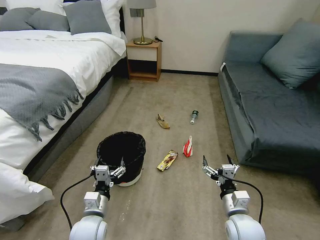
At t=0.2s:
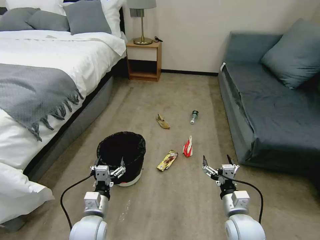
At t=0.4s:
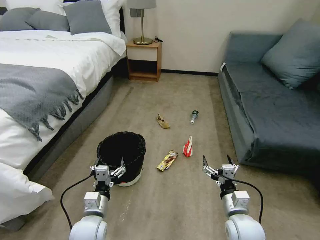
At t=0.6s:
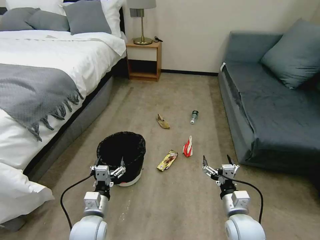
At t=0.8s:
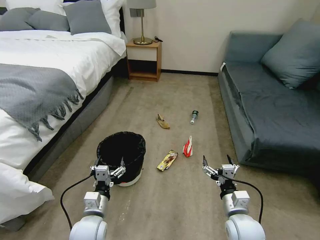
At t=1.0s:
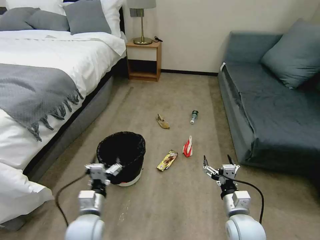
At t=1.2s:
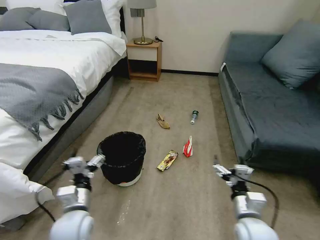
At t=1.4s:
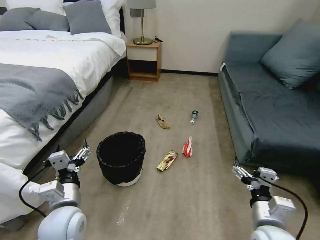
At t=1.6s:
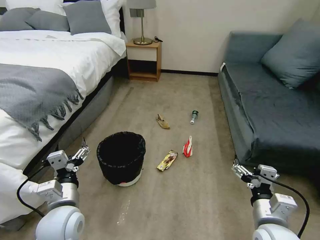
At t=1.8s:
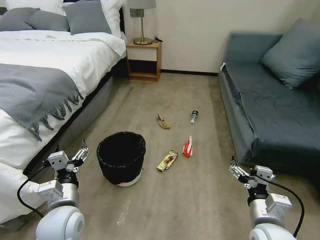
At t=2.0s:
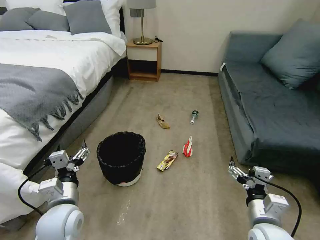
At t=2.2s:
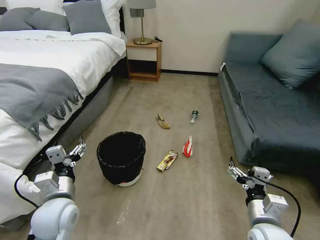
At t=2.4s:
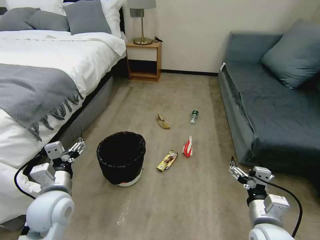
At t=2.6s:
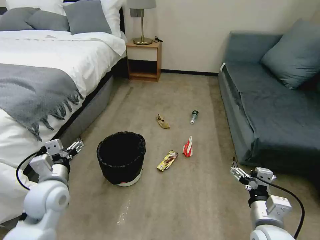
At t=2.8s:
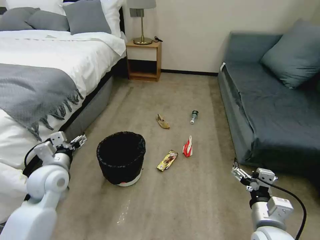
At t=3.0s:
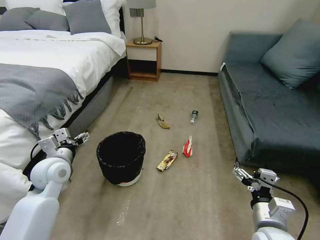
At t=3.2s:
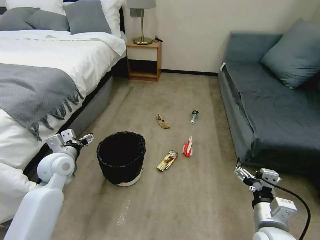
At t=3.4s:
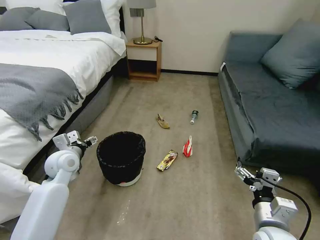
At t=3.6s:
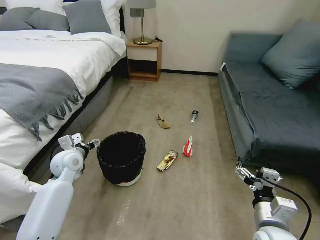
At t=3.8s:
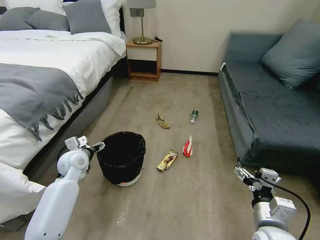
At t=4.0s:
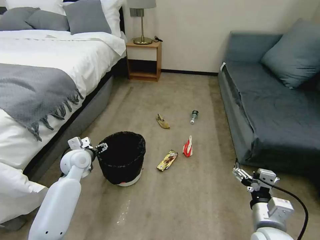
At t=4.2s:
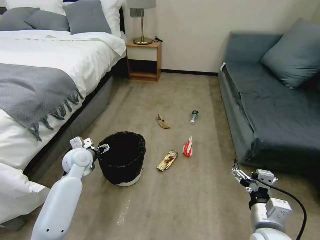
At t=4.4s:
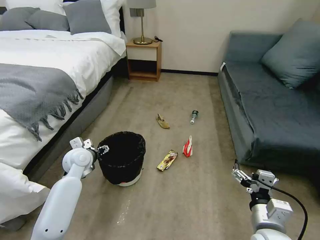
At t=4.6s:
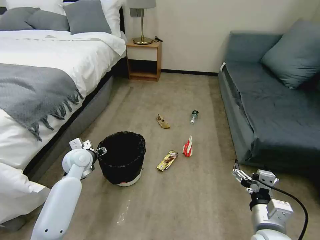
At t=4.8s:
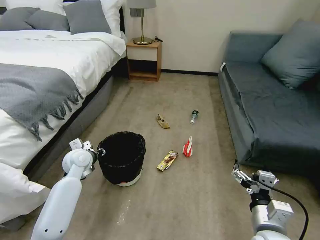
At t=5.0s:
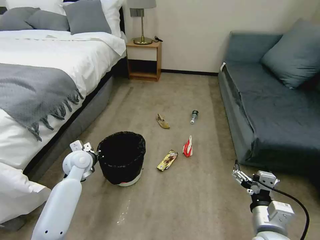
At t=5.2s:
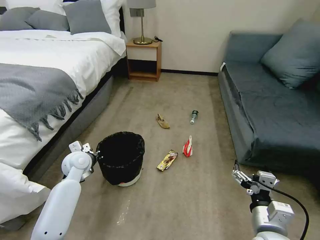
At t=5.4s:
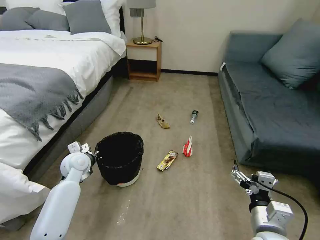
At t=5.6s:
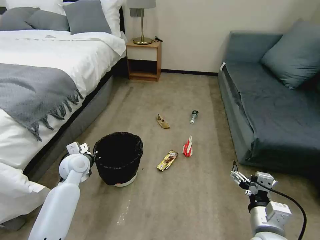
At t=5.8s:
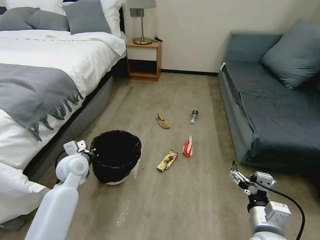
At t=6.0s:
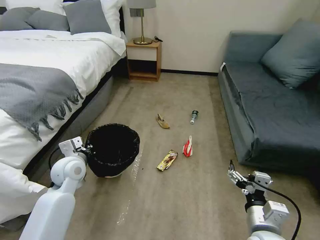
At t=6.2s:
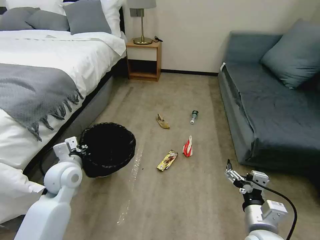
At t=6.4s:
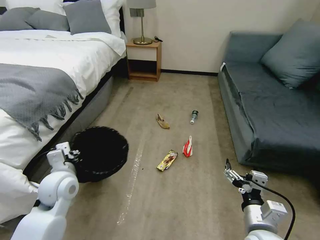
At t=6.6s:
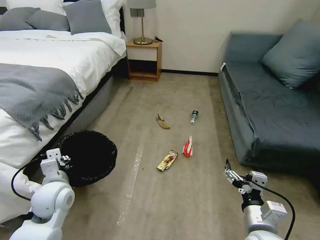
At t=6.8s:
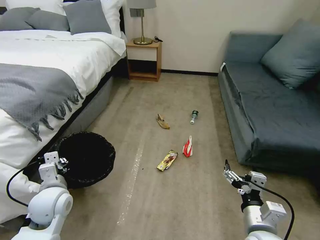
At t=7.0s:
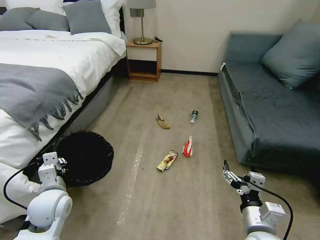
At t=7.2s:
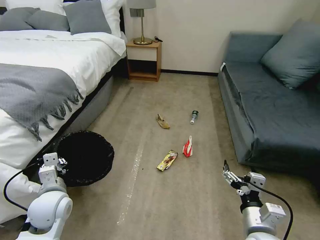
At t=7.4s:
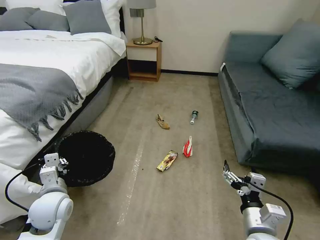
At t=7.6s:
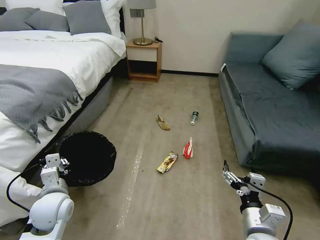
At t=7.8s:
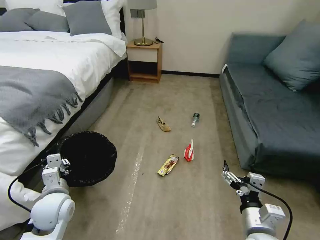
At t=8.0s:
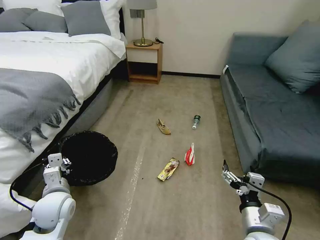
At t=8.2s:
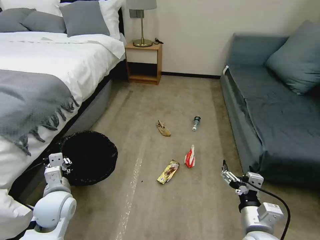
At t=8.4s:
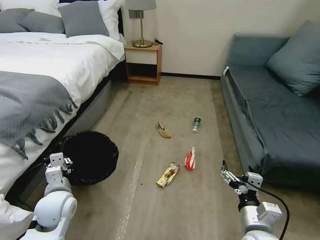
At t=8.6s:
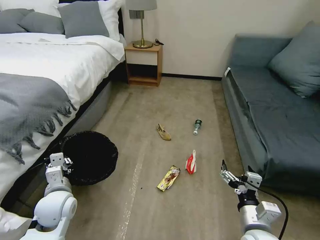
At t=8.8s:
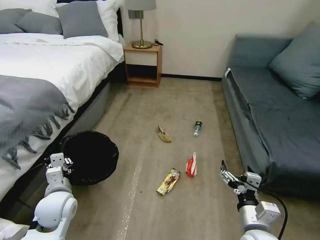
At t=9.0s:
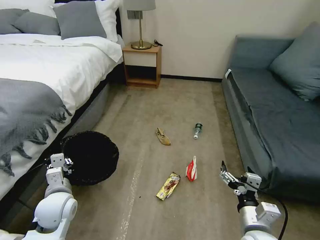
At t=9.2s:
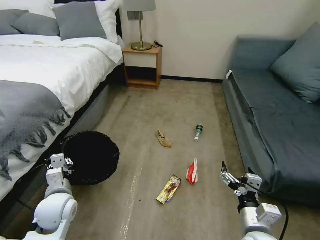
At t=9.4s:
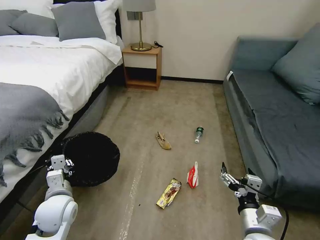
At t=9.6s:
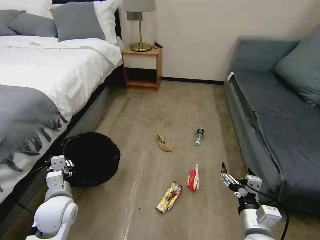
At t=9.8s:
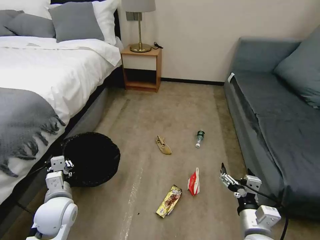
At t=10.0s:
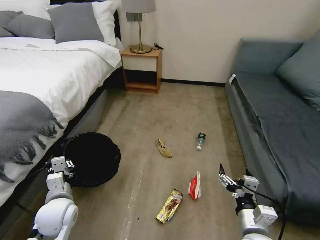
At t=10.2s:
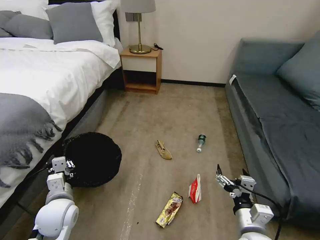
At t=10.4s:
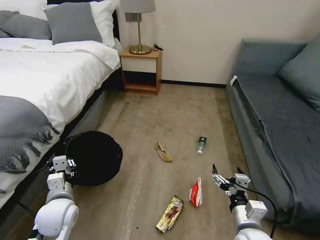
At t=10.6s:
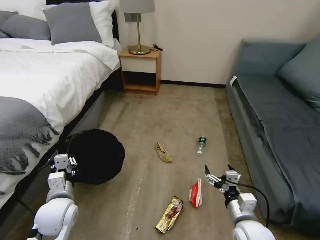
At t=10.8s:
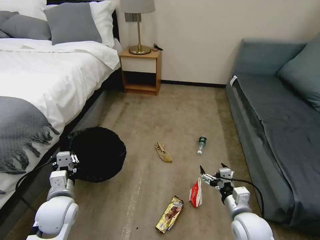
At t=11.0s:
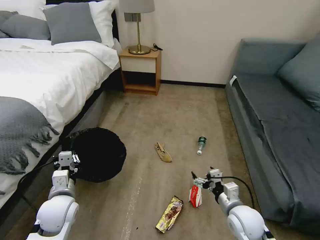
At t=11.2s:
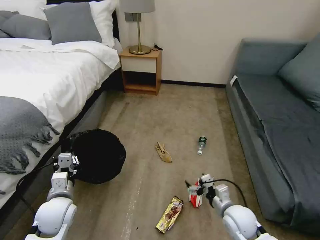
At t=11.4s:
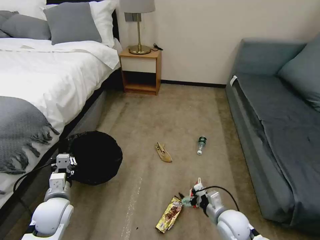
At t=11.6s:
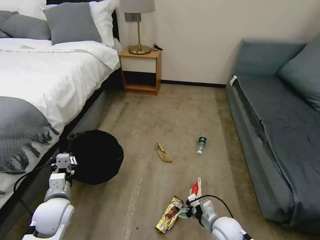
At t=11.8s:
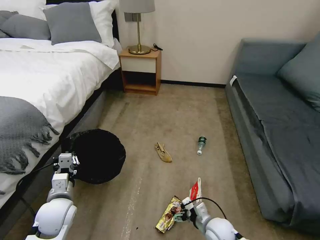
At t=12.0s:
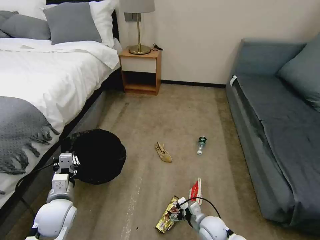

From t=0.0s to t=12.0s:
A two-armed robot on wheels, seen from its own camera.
Task of the whole recording: Pick up the trash bin, then pick up the garbage on the floor and place it into the trash bin.
From t=1.6s to t=3.0s: The left gripper shifts roughly 15 cm forward and to the left.
From t=3.0s to t=4.4s: The left gripper moves forward and downward, about 10 cm.
From t=4.4s to t=6.0s: The left gripper moves backward, approximately 5 cm, and closes.
From t=6.0s to t=7.6s: The left gripper heads backward, covering about 10 cm.
From t=10.4s to t=12.0s: The right gripper goes about 20 cm downward and forward.

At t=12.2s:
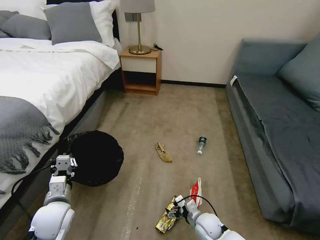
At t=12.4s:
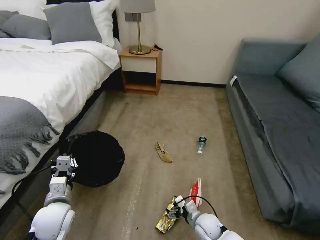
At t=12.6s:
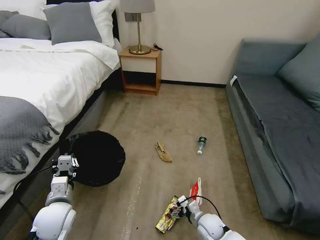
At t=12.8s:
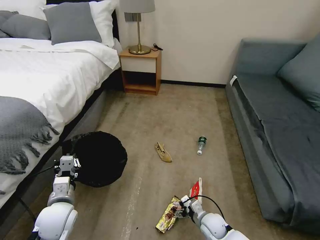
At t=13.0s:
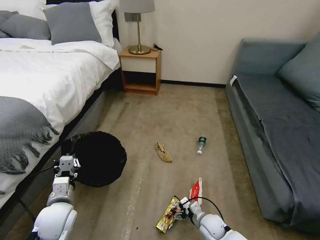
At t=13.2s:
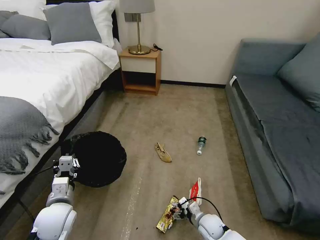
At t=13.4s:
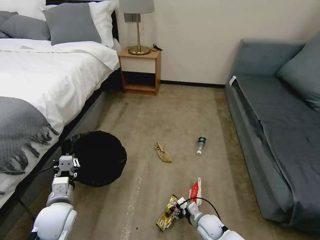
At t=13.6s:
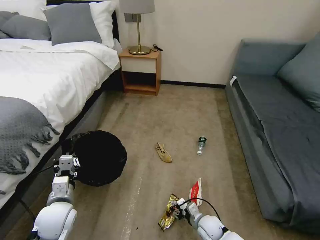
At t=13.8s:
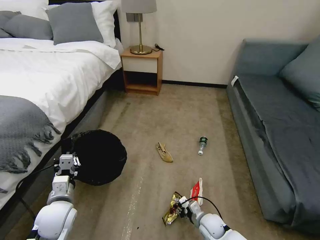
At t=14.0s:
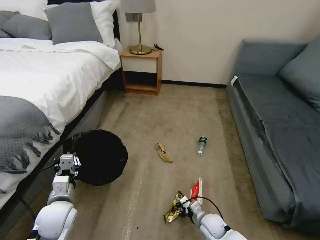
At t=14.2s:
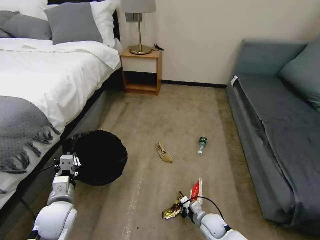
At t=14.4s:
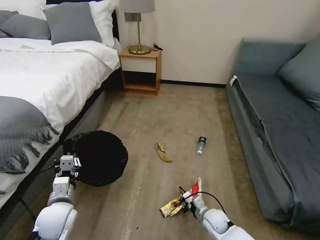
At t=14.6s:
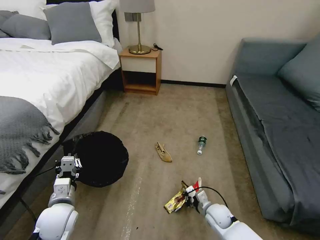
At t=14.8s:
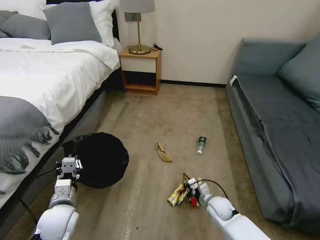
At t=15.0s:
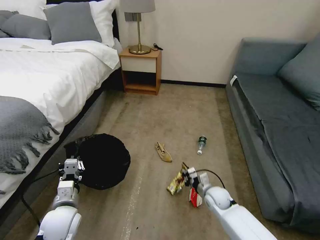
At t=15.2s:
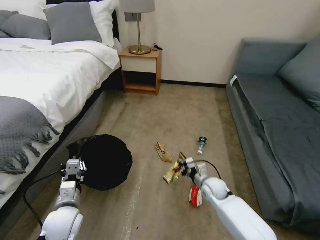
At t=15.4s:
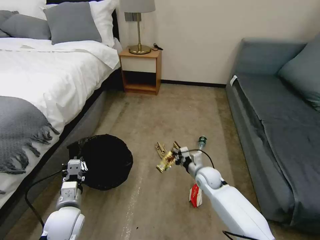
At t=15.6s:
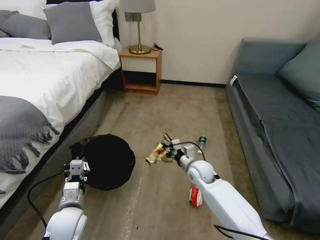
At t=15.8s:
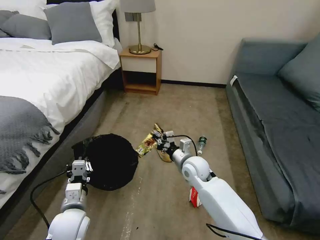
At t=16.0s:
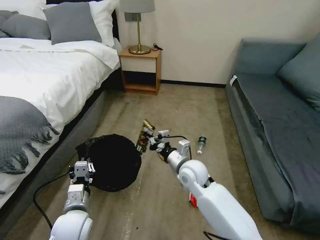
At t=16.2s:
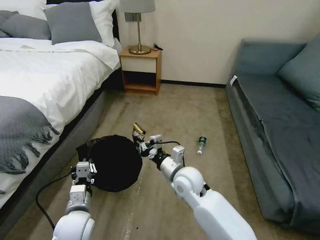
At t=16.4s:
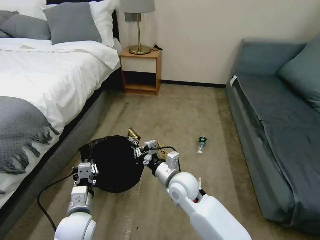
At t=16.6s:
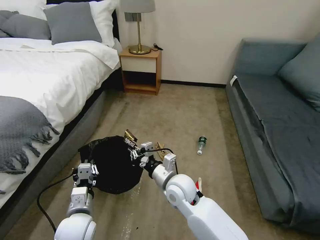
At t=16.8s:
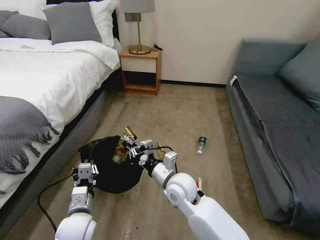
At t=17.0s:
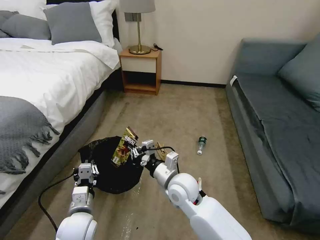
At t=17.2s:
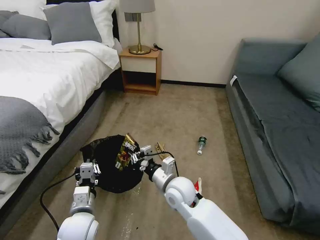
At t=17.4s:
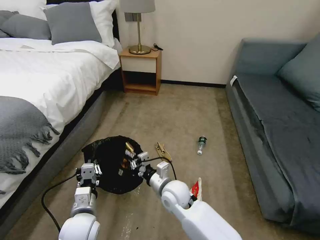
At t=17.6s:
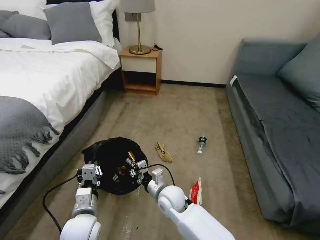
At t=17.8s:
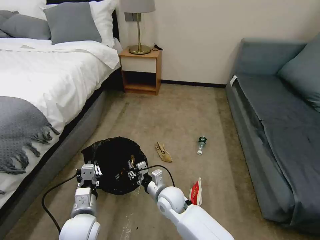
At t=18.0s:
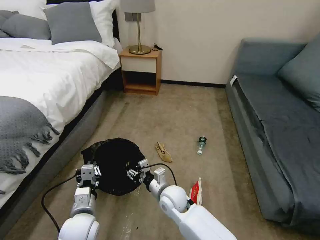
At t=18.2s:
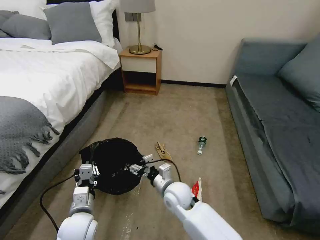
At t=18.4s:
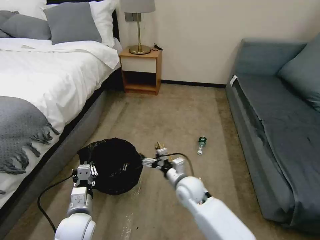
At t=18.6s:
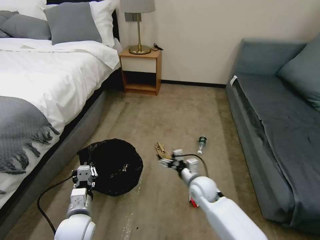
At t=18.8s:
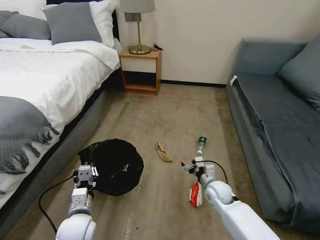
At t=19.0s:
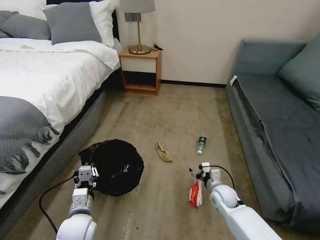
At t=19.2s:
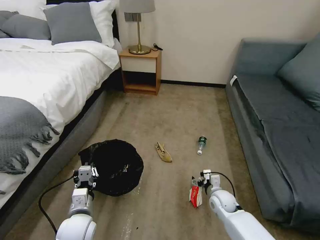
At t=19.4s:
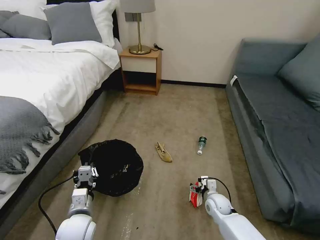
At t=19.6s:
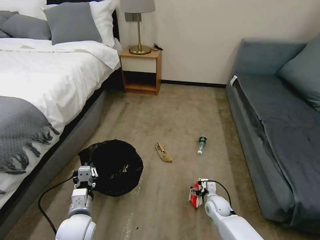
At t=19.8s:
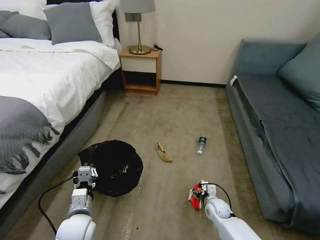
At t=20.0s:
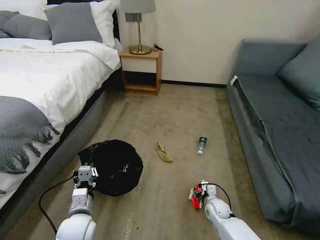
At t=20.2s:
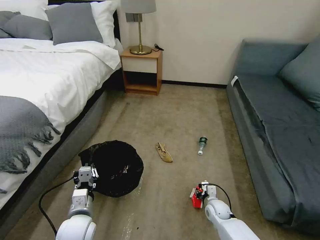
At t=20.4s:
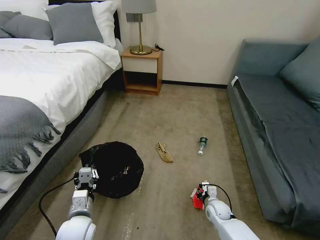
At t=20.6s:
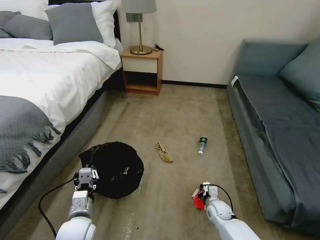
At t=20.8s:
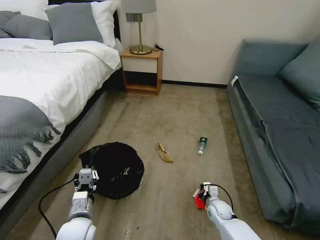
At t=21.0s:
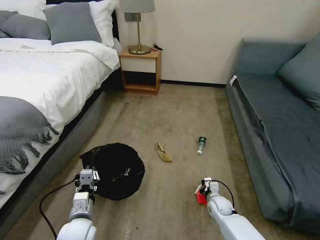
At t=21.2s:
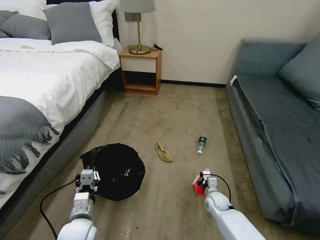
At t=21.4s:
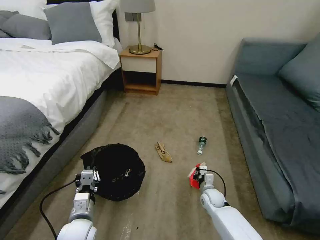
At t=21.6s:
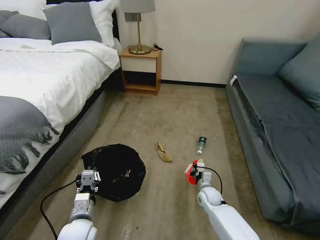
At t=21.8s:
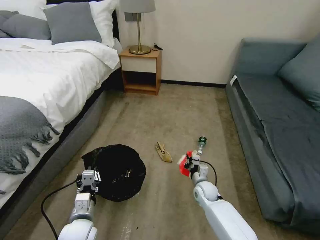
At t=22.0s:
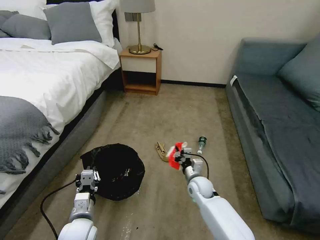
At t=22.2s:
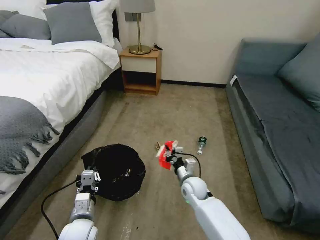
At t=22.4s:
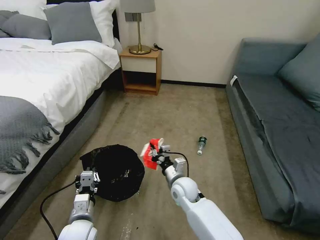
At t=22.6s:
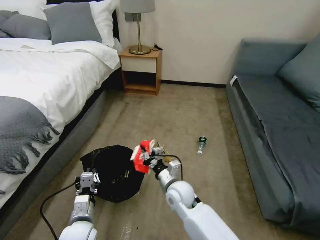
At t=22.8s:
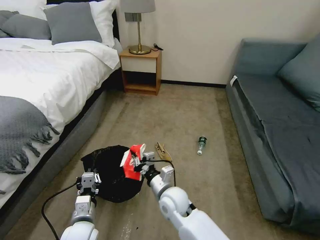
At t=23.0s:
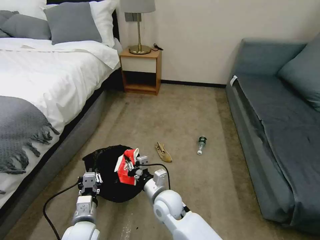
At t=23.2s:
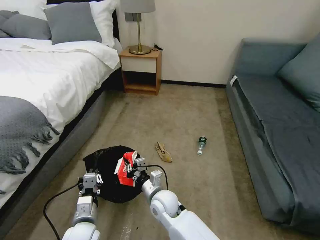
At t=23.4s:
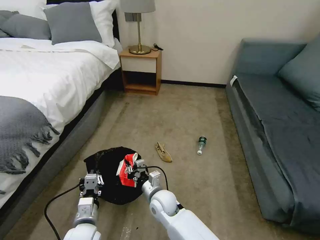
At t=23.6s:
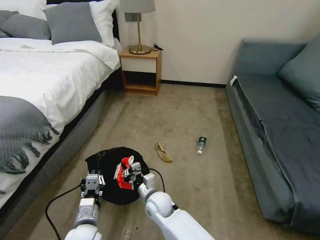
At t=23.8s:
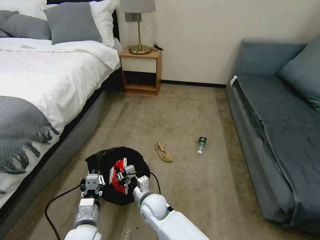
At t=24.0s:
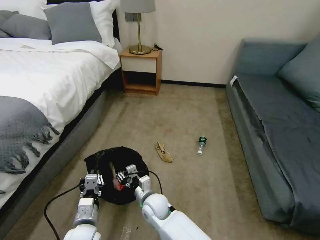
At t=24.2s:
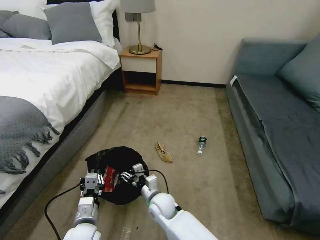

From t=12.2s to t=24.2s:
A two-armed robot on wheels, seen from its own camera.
Task of the whole recording: Pick up the trash bin, then pick up the garbage on the floor and place it into the trash bin.
From t=12.2s to t=13.8s: The right gripper closes its fingers.
From t=13.8s to t=15.2s: The right gripper moves forward and upward, about 15 cm, and closes its fingers.
From t=15.2s to t=16.6s: The left gripper shifts by approximately 5 cm. The right gripper is displaced to the left and upward by approximately 20 cm.
From t=16.6s to t=18.2s: The right gripper travels downward by some 5 cm, and opens up.
From t=18.2s to t=19.8s: The right gripper heads to the right and downward, covering approximately 25 cm.
From t=19.8s to t=21.2s: The right gripper closes.
From t=21.2s to t=22.6s: The right gripper travels to the left and upward by roughly 25 cm.
From t=22.6s to t=24.2s: The right gripper travels to the left and downward by roughly 10 cm, and opens its fingers.
